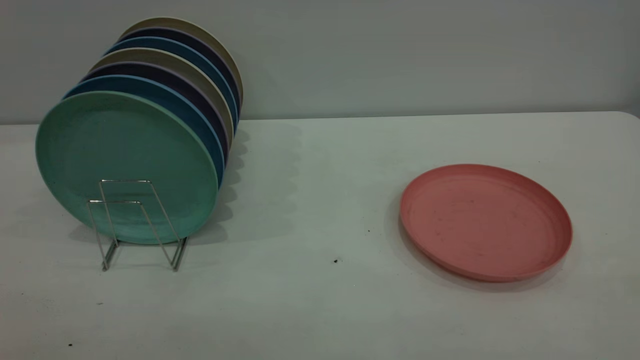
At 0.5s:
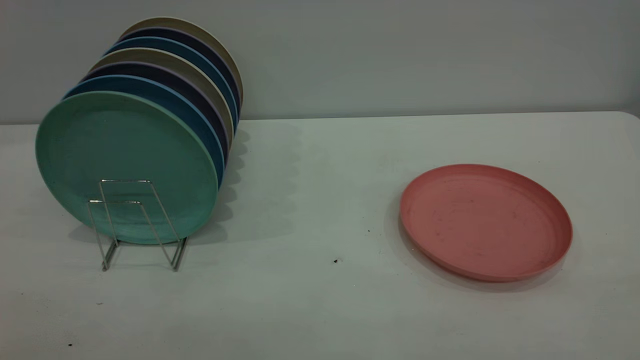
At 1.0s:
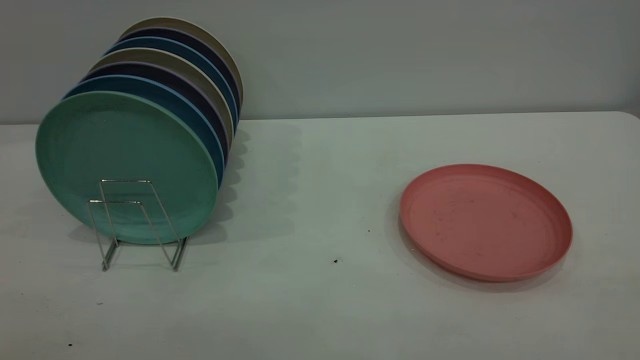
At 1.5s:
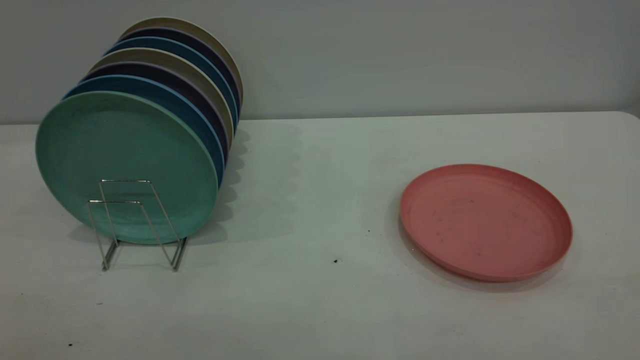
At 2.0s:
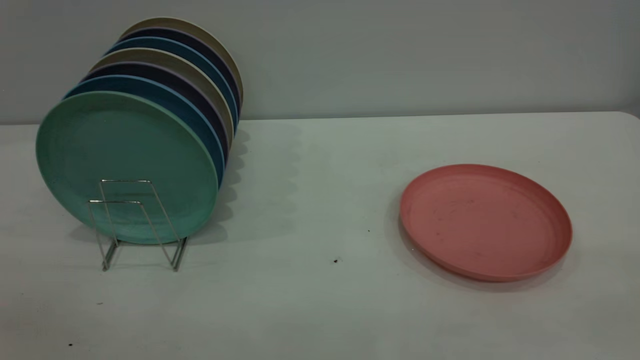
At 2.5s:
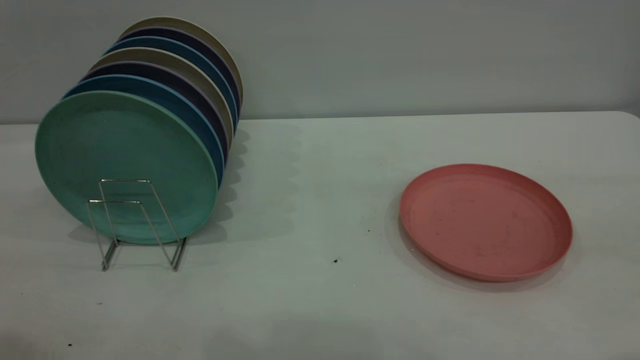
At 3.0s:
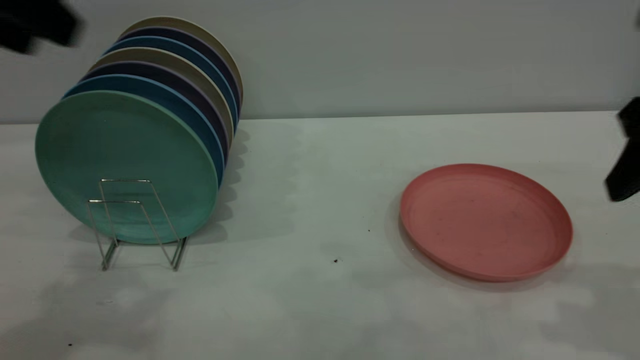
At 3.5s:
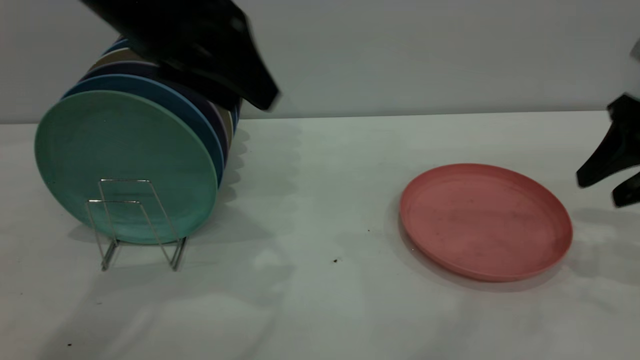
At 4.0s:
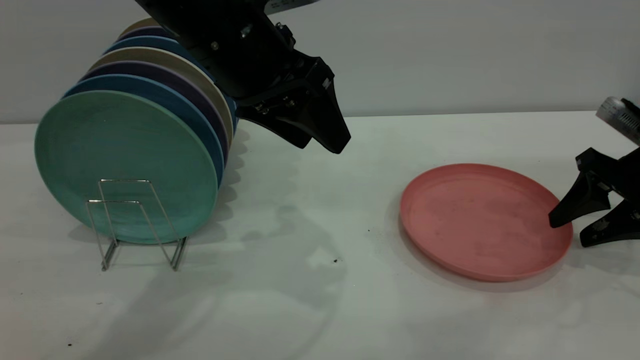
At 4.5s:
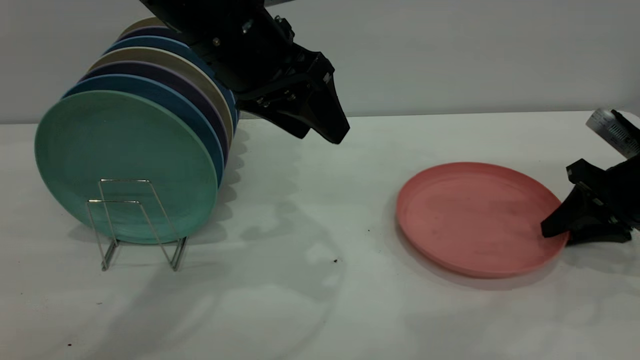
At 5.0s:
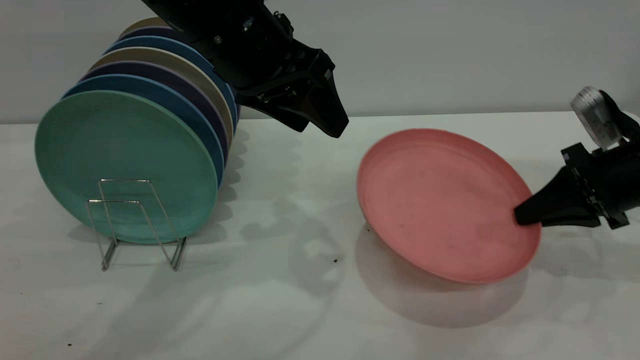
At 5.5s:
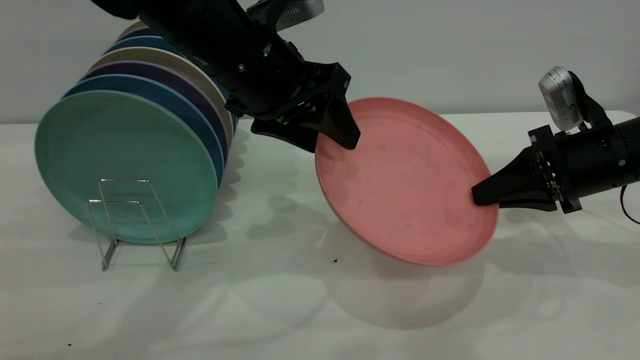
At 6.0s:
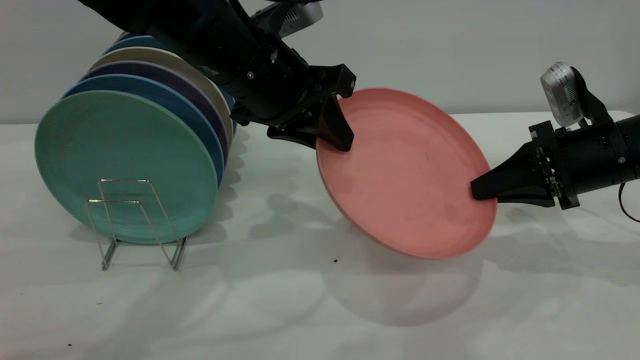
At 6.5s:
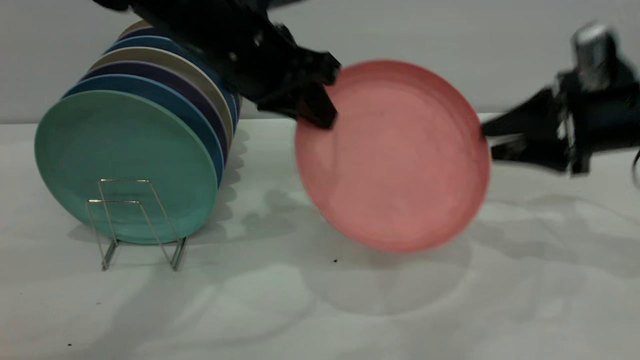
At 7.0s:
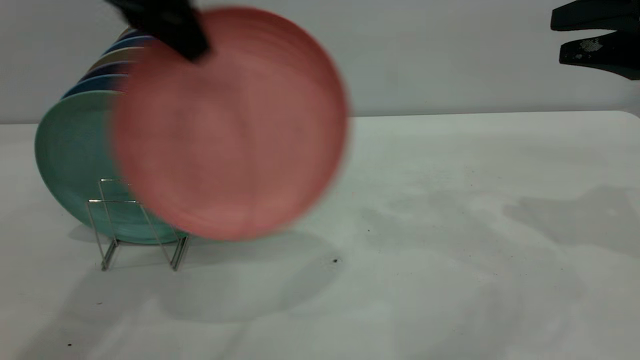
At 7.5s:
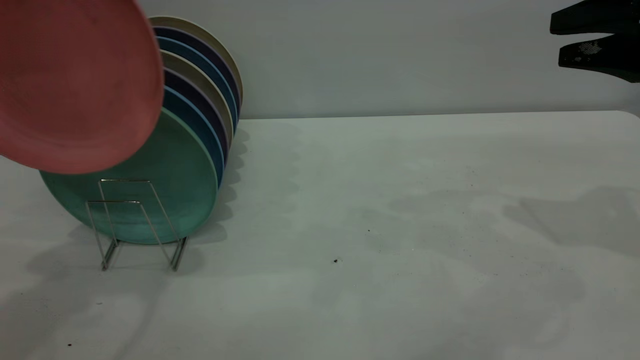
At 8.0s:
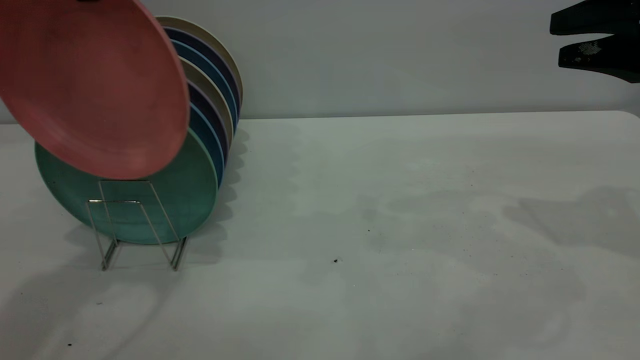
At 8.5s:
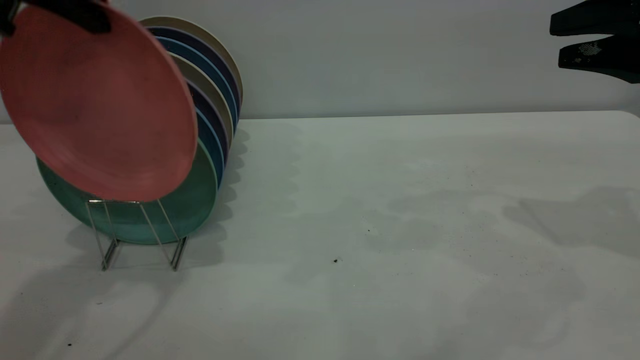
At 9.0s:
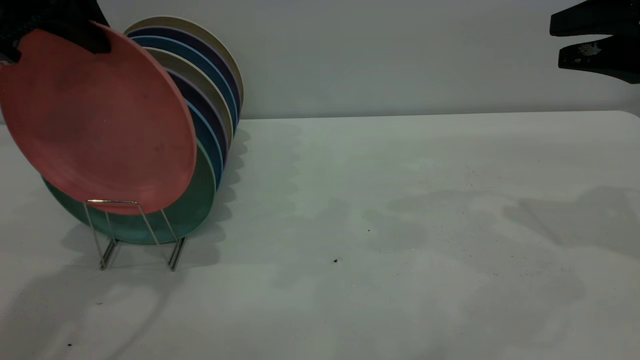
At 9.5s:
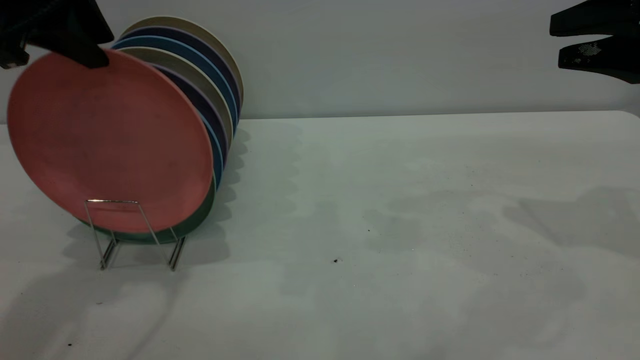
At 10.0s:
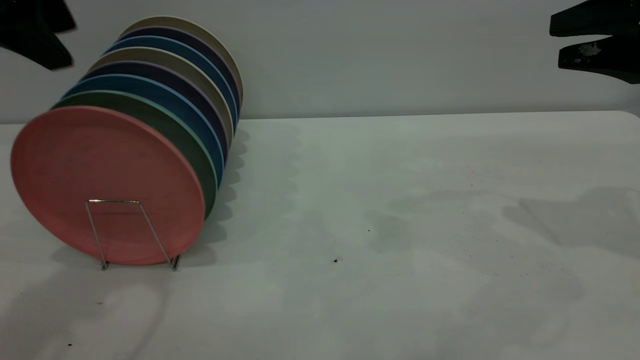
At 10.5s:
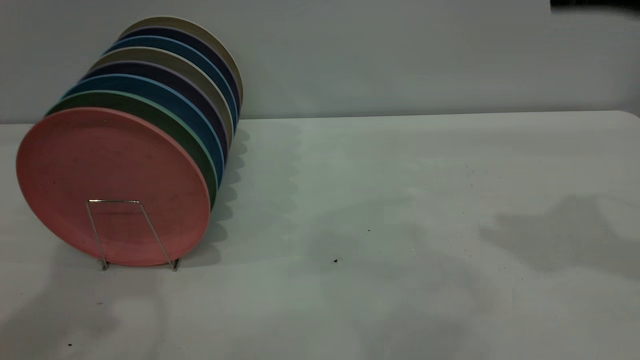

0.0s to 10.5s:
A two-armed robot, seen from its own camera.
Task of the whole recording: the right gripper grasp the pink plate, the right gripper pass the pink plate to the left gripper, and the left gripper place the pink plate on the plate rack.
Step, 0.0s to 4.5s: Pick up the plate with the right gripper.
Step, 5.0s to 6.5s: Pass the plate from the right gripper to the left gripper.
Step, 7.0s to 10.0s: Place the plate on the shelf.
2.0s to 4.0s: The right gripper travels forward and downward by approximately 40 cm; the left gripper heads forward, to the right and downward, covering about 40 cm.
4.0s to 6.5s: The left gripper closes its fingers. The right gripper is displaced upward by approximately 5 cm, and closes, then reopens.
6.5s to 8.5s: The right gripper goes about 10 cm upward. The left gripper is displaced to the left and upward by about 15 cm.
8.5s to 10.5s: The right gripper moves upward, some 10 cm. Meanwhile the left gripper moves upward and backward, some 10 cm, and opens its fingers.

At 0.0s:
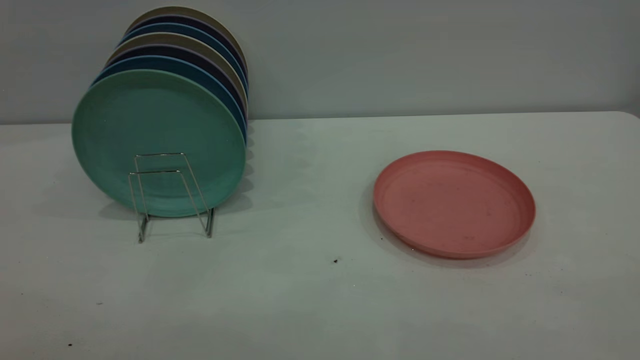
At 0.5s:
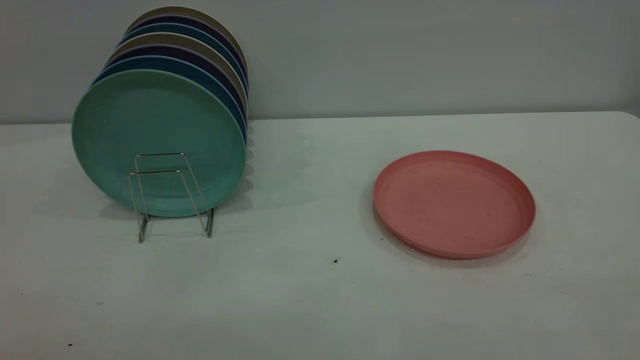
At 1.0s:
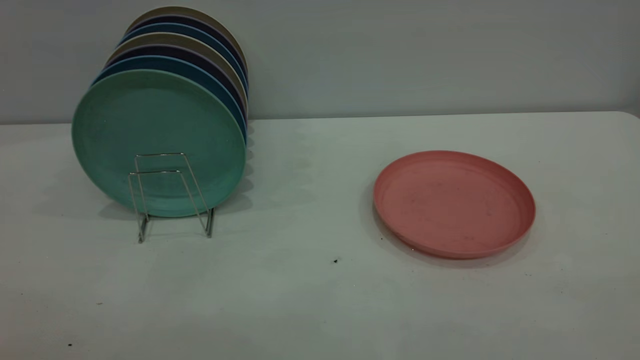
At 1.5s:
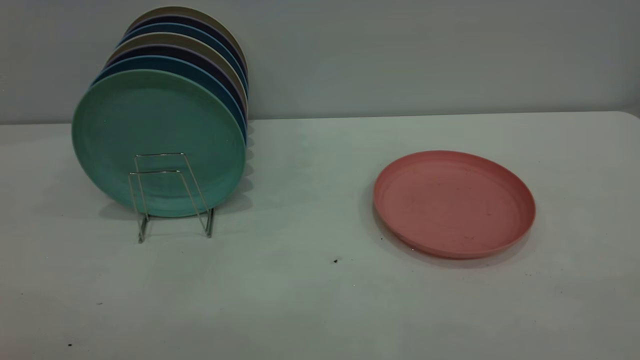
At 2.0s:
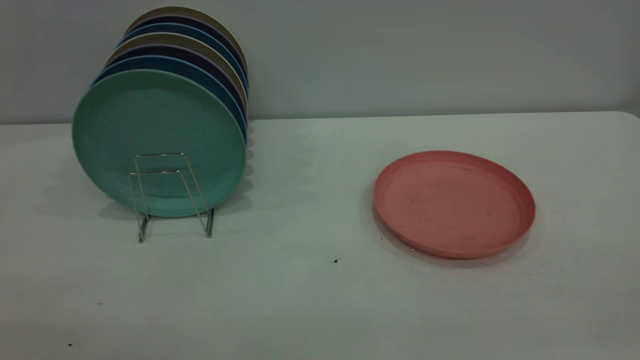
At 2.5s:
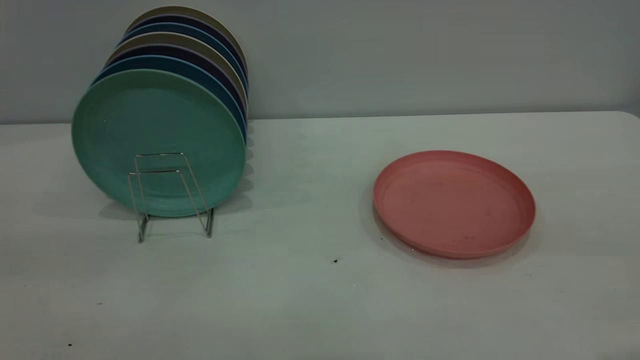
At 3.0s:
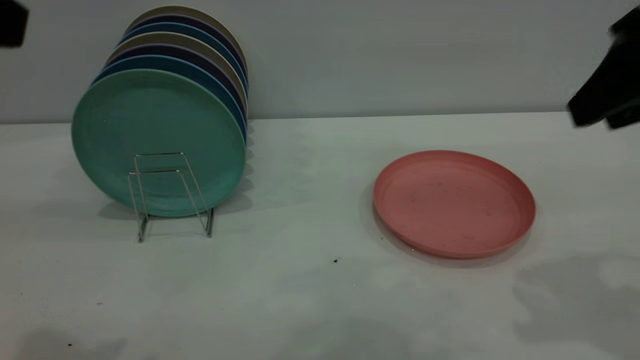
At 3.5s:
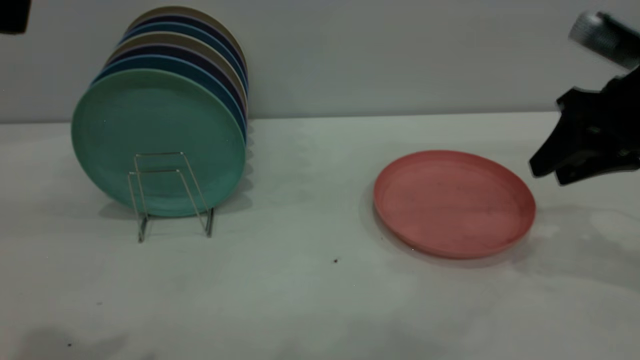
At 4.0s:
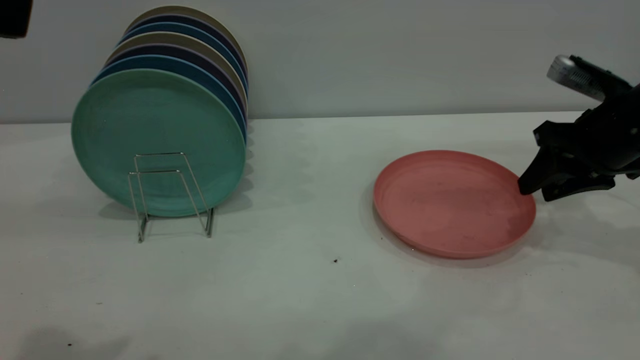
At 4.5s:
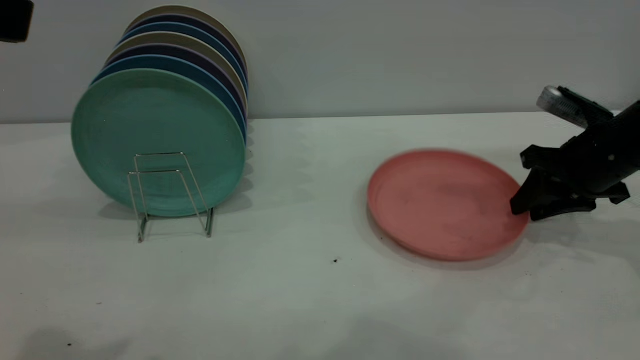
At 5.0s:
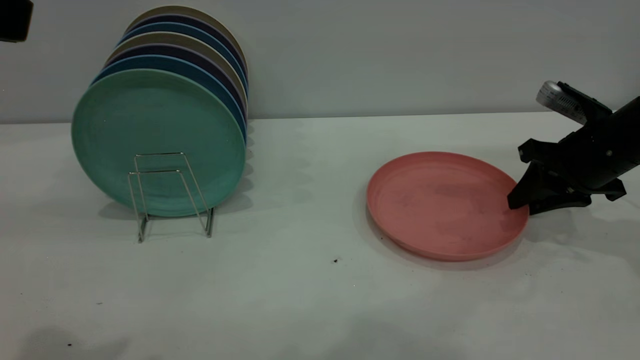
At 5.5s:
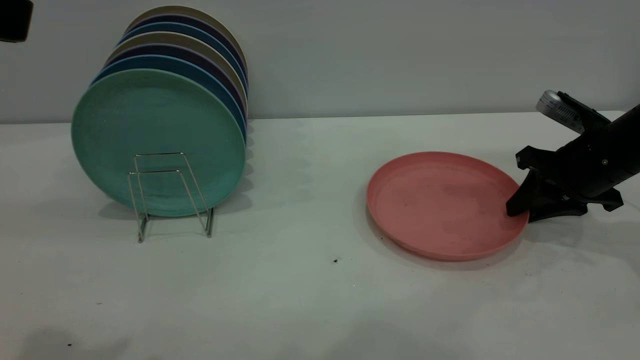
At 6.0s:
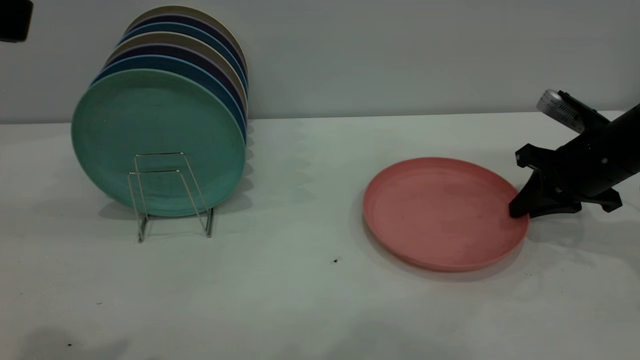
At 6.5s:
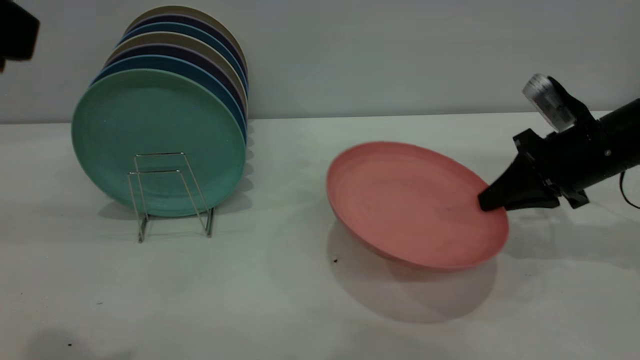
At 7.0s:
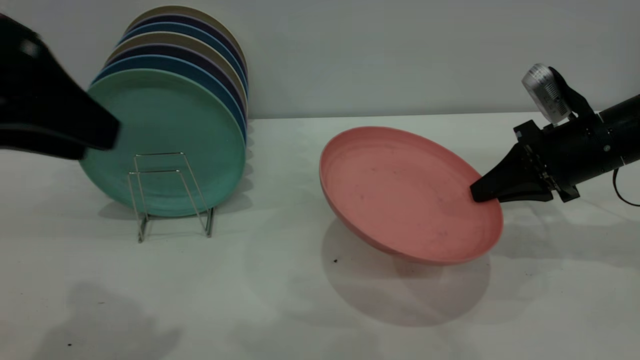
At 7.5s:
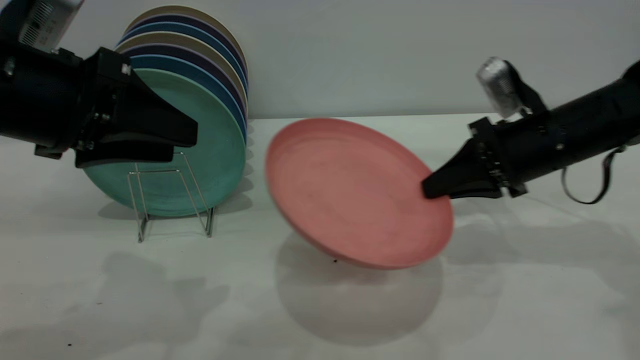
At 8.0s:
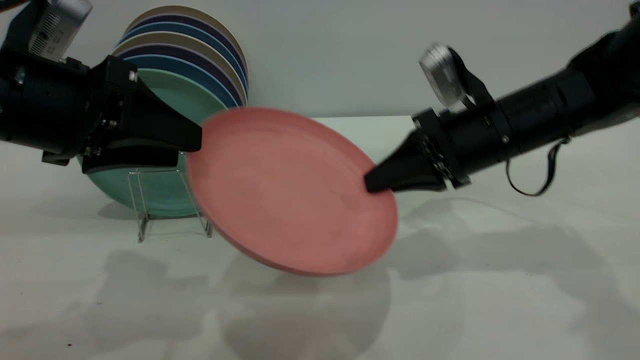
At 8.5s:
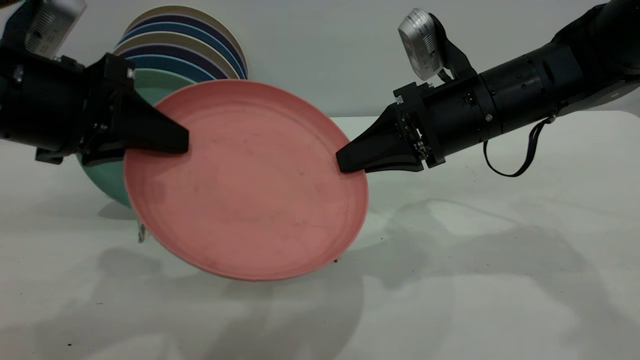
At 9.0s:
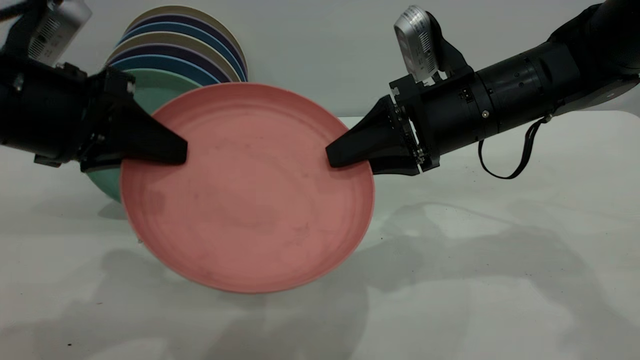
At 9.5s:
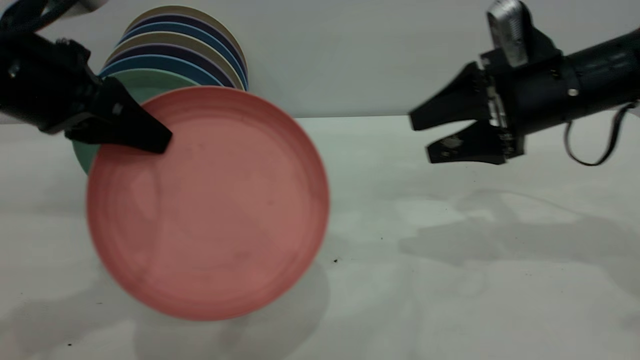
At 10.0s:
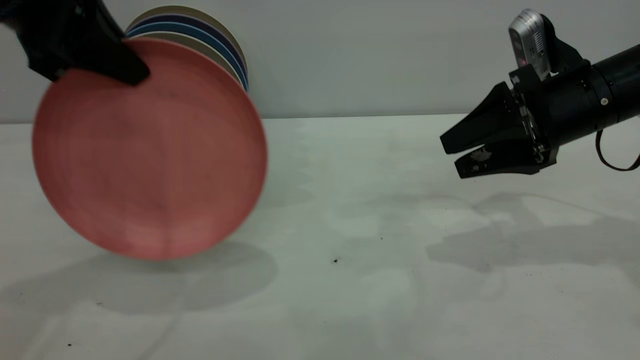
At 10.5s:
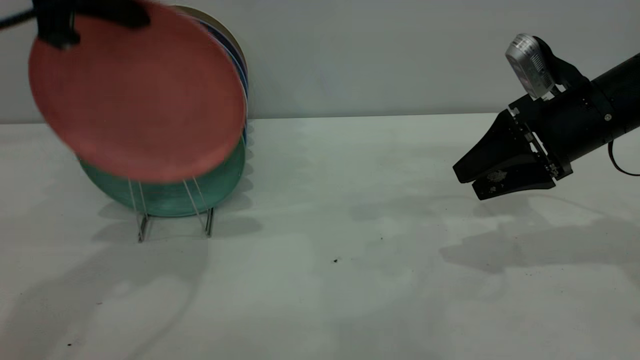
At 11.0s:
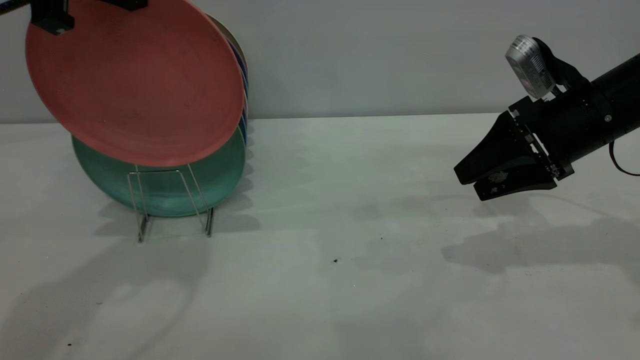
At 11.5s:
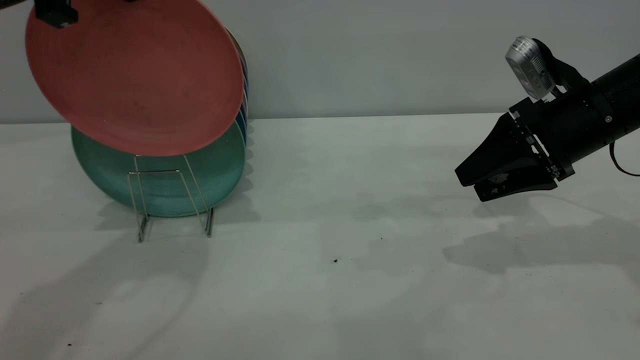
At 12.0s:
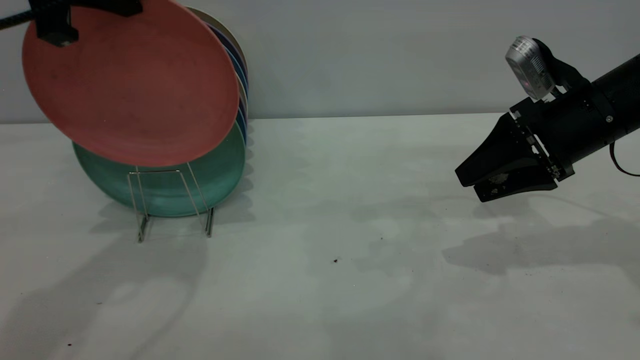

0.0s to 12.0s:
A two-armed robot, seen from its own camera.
Task of the whole recording: the right gripper grasp the pink plate, the right gripper pass the pink plate to the left gripper, and the left gripper place the pink plate on the plate rack.
Step, 0.0s to 6.5s: Pick up the plate with the right gripper.
Step, 7.0s to 10.5s: Pass the plate from the right gripper to the left gripper.
2.0s to 4.0s: The right gripper travels forward and downward by approximately 40 cm.
4.0s to 6.0s: The right gripper closes up.
6.0s to 8.0s: The right gripper travels to the left by some 15 cm. The left gripper goes approximately 15 cm downward and forward.
8.0s to 10.0s: The right gripper moves to the right, approximately 10 cm, and opens its fingers. Meanwhile the left gripper goes about 10 cm upward and forward, and closes.
